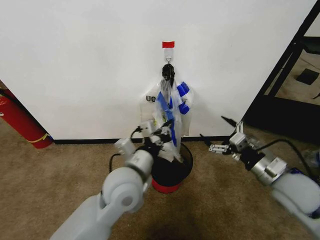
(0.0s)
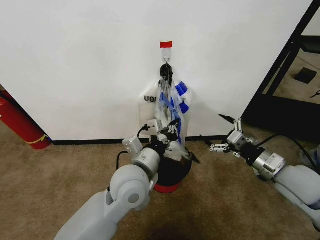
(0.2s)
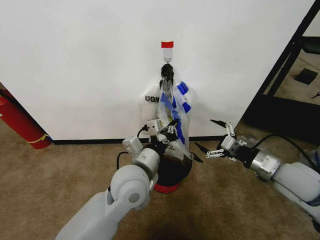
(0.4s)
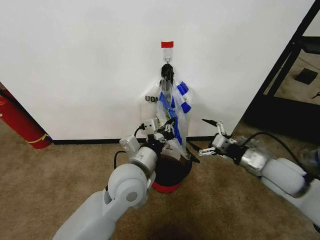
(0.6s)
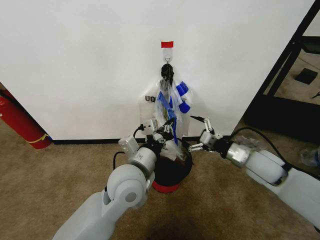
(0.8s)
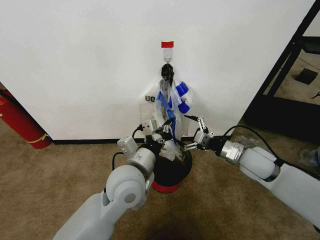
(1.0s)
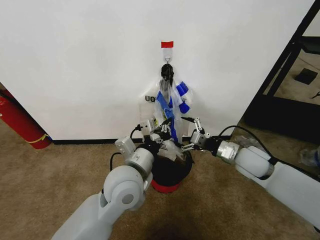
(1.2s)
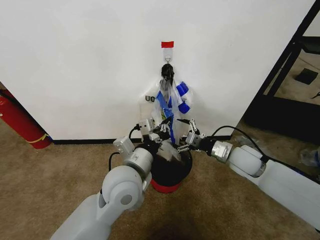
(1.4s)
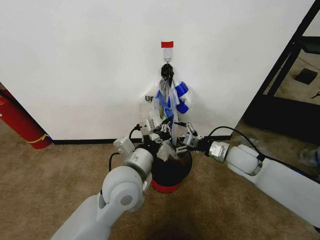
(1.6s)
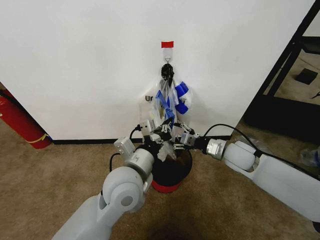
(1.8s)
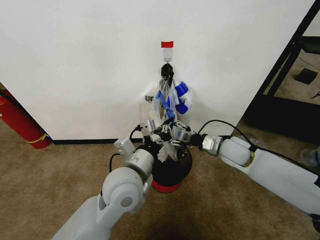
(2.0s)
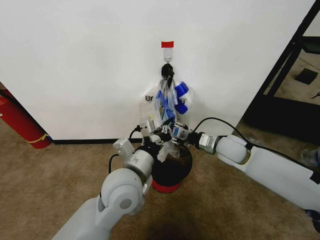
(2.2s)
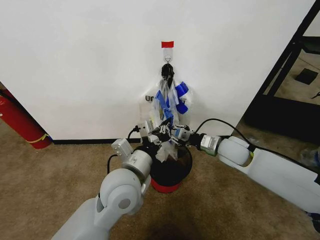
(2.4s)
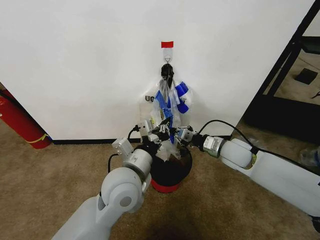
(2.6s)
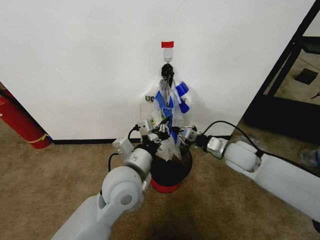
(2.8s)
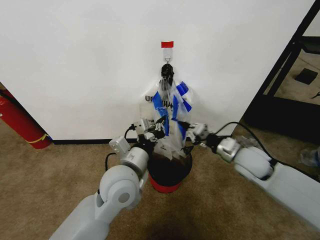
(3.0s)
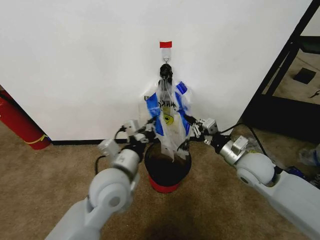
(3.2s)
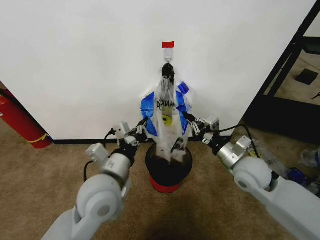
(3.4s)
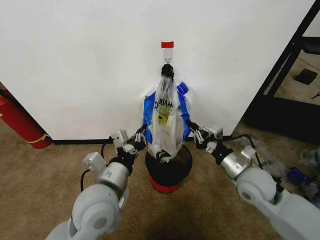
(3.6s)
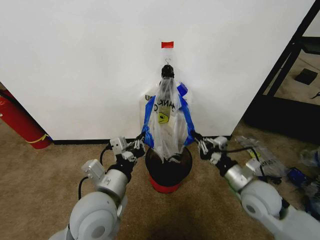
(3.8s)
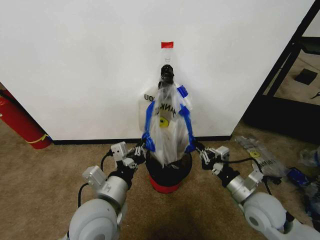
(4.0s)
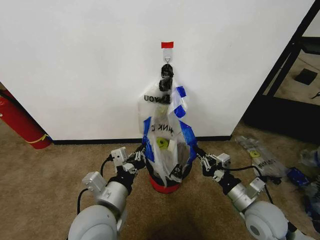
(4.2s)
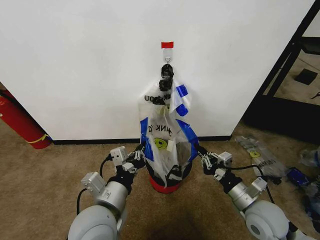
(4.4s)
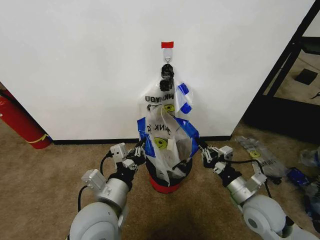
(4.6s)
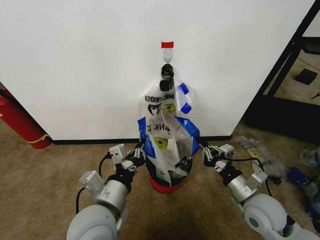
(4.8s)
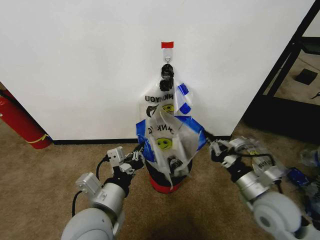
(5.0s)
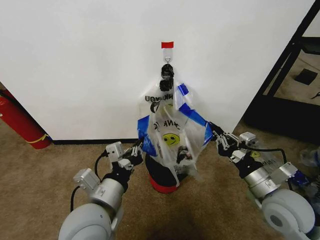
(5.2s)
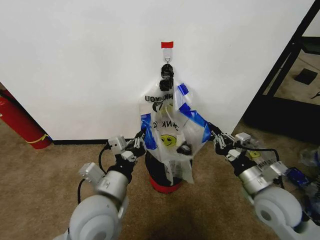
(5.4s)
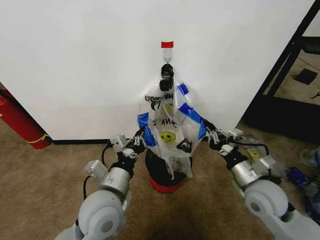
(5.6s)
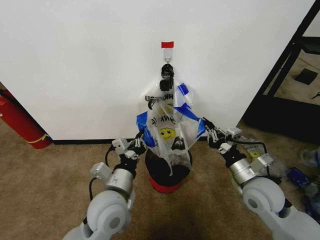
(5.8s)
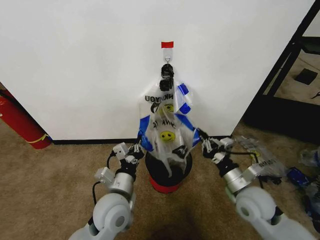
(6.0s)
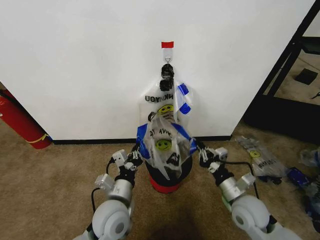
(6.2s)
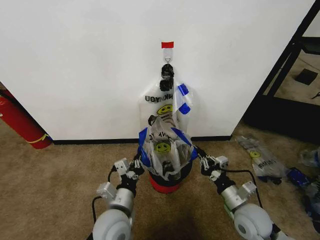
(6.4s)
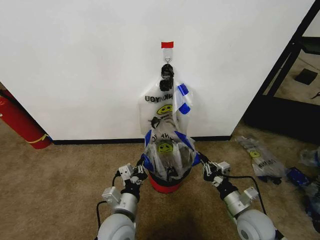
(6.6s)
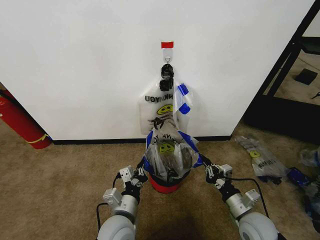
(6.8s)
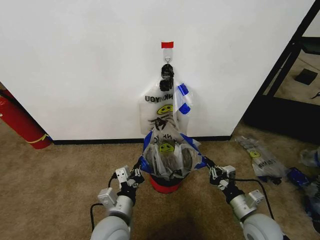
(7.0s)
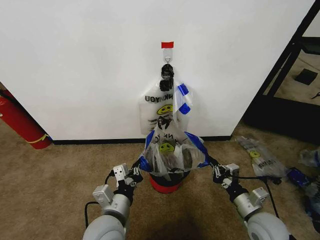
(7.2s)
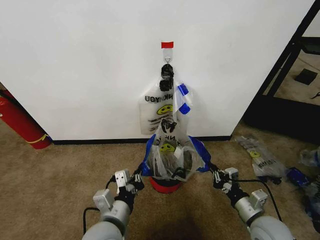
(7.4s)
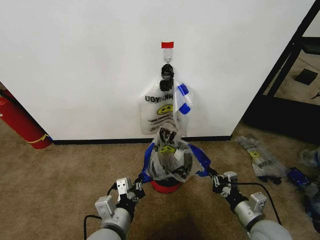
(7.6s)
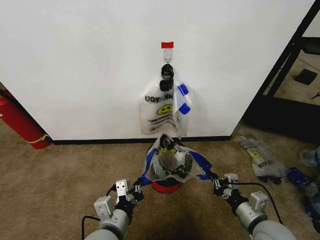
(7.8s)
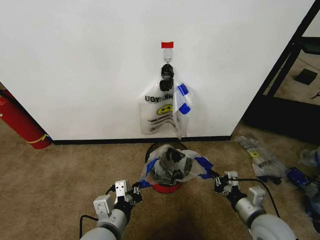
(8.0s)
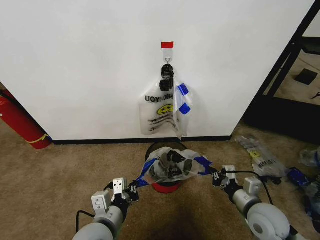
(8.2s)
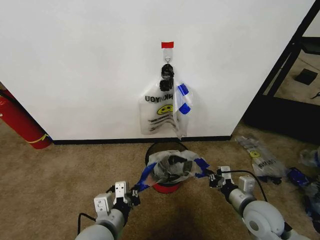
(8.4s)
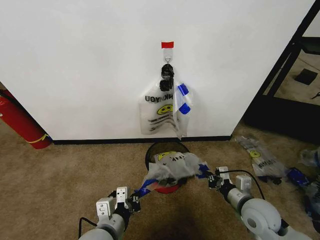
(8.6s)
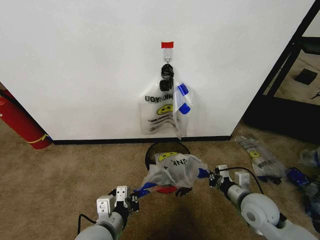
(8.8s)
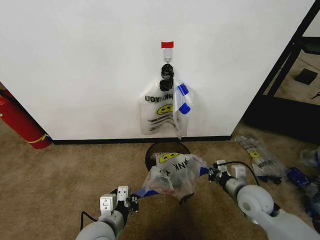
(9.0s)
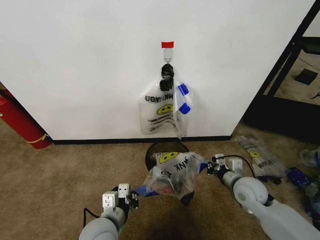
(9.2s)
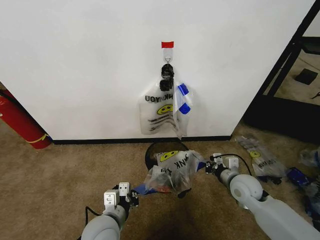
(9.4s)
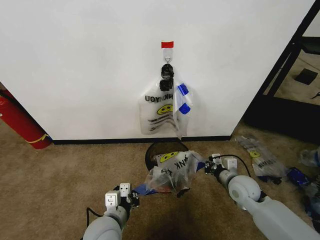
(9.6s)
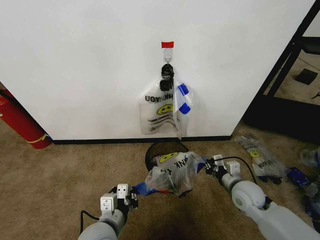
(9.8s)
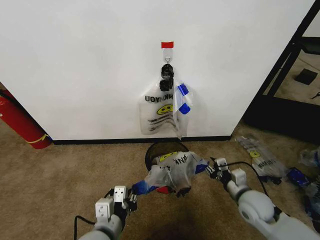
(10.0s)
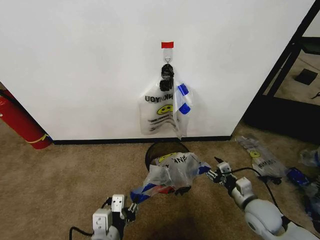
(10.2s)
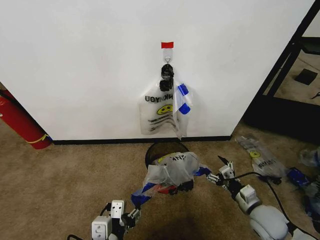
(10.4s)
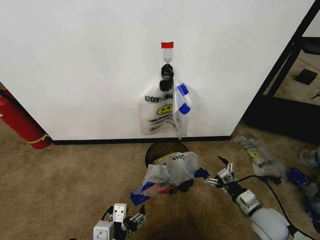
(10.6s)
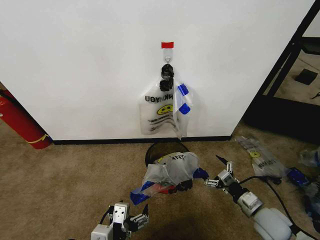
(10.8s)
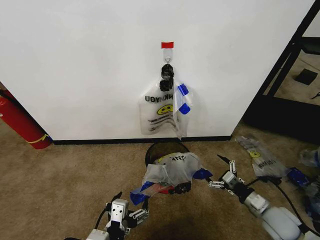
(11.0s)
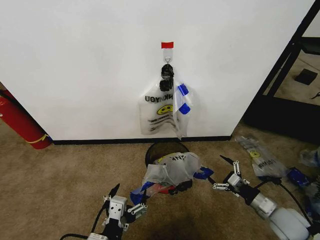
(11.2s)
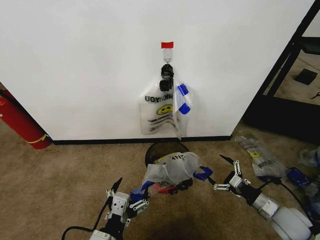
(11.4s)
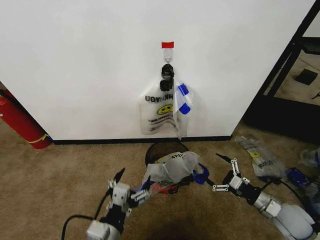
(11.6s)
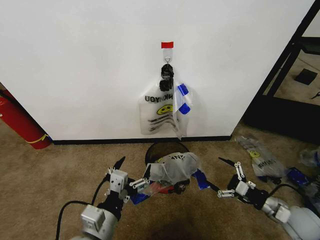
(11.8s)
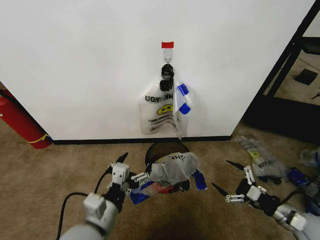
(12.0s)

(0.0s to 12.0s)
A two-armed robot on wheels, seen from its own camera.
Task of the whole recording: Pick up the garbage bag from the wall and place it over the trash bin.
0.0s - 1.6s: The right gripper moves forward and to the left, about 15 cm.
1.6s - 3.0s: The right gripper closes.
3.0s - 4.4s: The right gripper travels backward and downward by approximately 15 cm; the left gripper is displaced backward by some 10 cm.
4.4s - 6.0s: The left gripper moves downward and forward, roughly 10 cm.
6.0s - 7.6s: The two grippers go about 10 cm backward.
7.6s - 9.0s: The right gripper heads forward, covering roughly 10 cm.
9.0s - 10.4s: The right gripper changes place by some 5 cm, and opens its fingers, while the left gripper travels backward by some 5 cm, and opens up.
10.4s - 12.0s: The left gripper is displaced forward by some 5 cm. Meanwhile the right gripper heads to the right, covering approximately 10 cm.

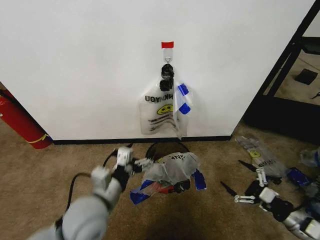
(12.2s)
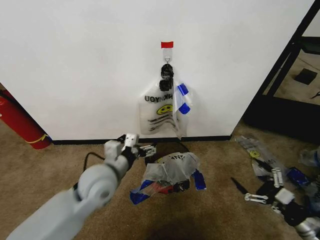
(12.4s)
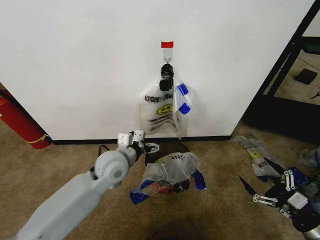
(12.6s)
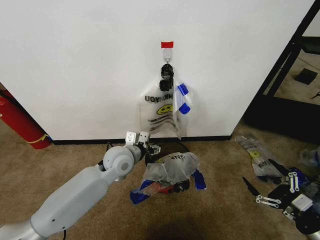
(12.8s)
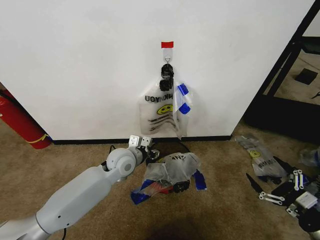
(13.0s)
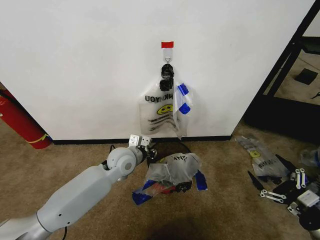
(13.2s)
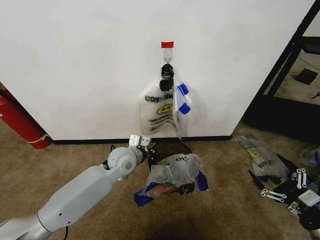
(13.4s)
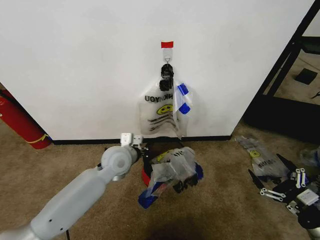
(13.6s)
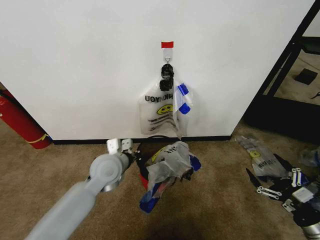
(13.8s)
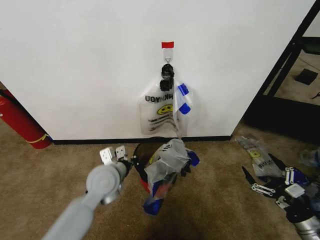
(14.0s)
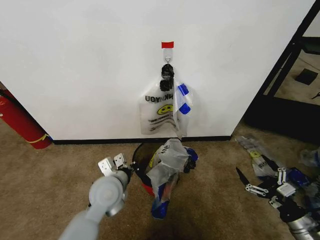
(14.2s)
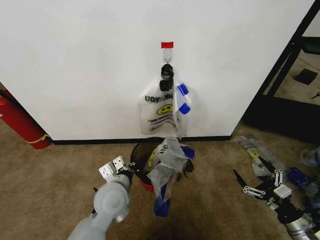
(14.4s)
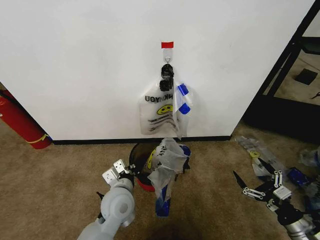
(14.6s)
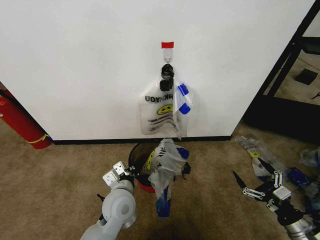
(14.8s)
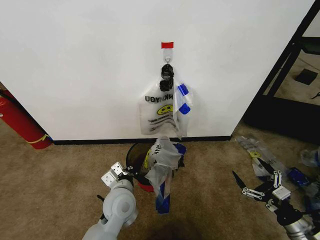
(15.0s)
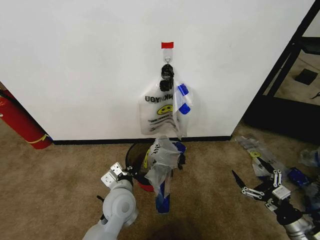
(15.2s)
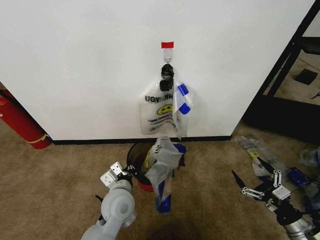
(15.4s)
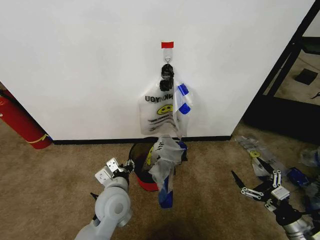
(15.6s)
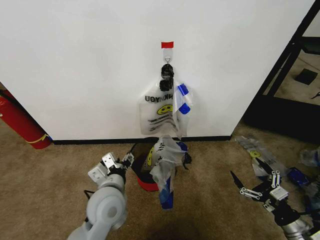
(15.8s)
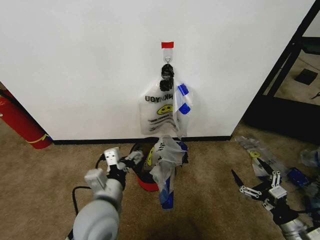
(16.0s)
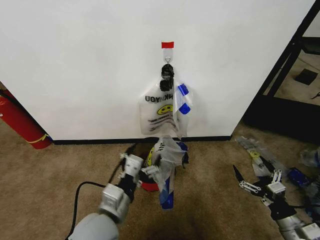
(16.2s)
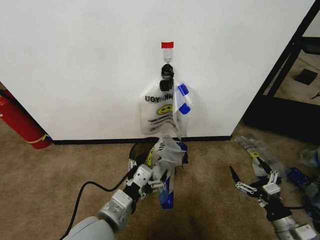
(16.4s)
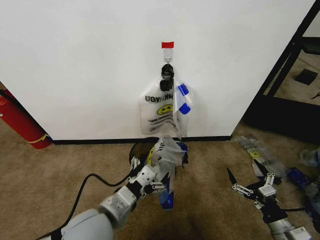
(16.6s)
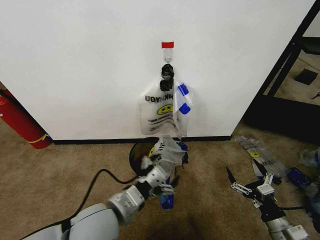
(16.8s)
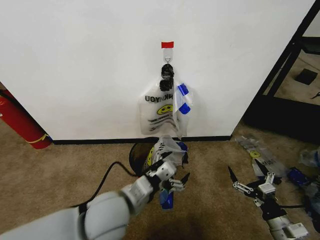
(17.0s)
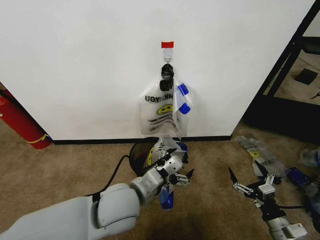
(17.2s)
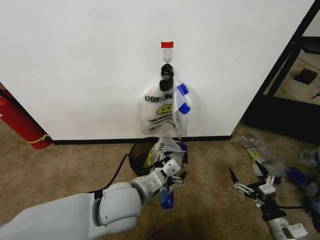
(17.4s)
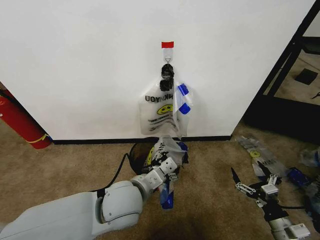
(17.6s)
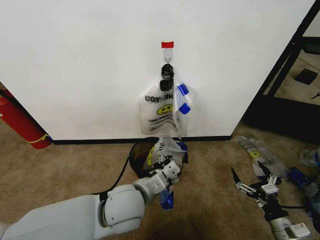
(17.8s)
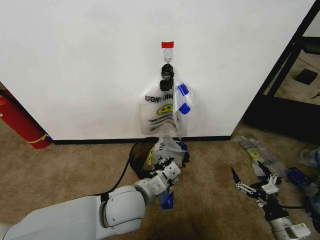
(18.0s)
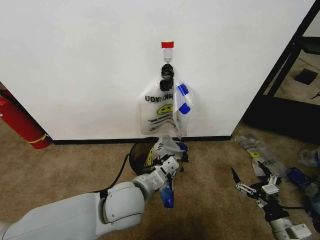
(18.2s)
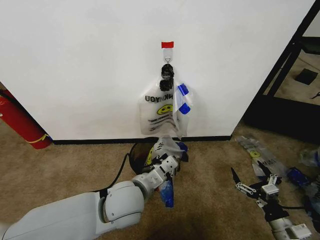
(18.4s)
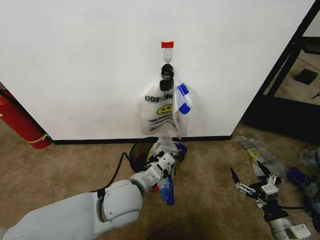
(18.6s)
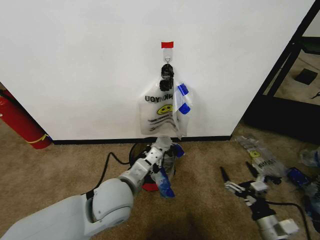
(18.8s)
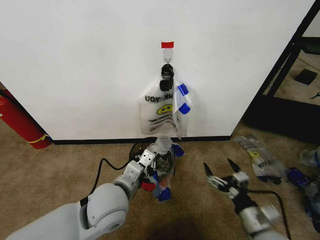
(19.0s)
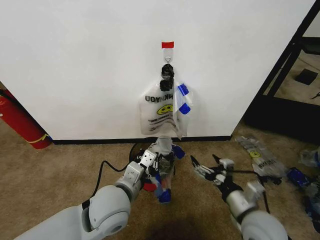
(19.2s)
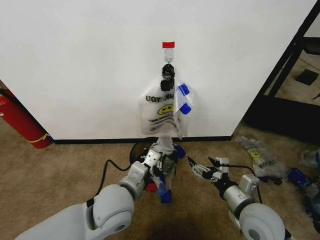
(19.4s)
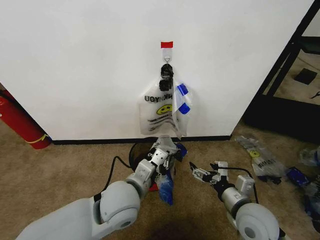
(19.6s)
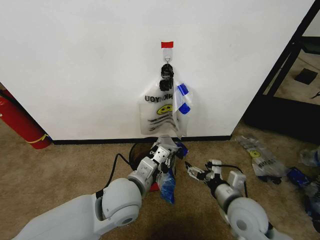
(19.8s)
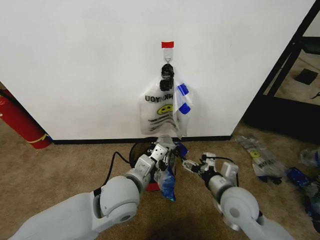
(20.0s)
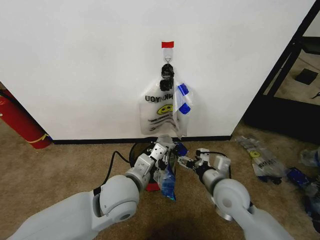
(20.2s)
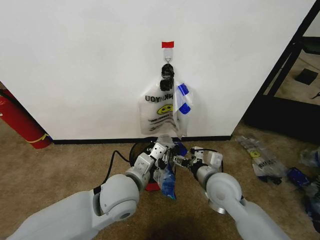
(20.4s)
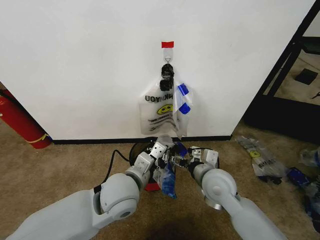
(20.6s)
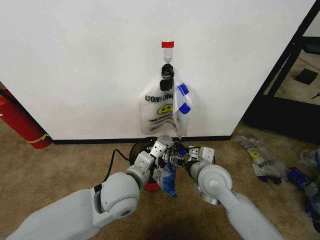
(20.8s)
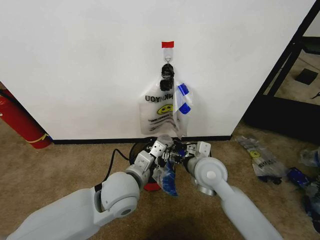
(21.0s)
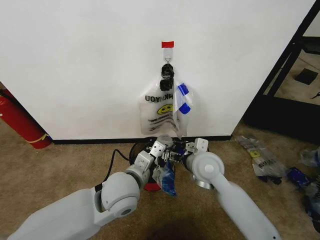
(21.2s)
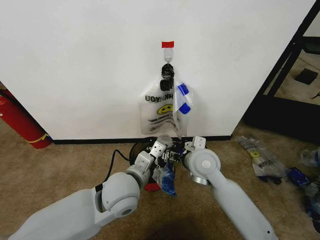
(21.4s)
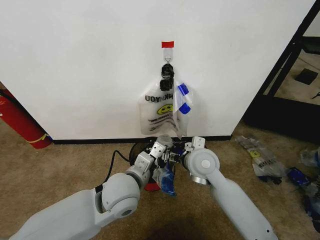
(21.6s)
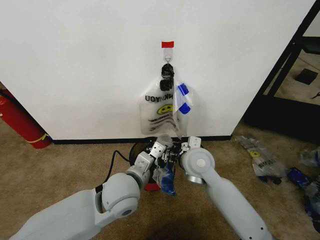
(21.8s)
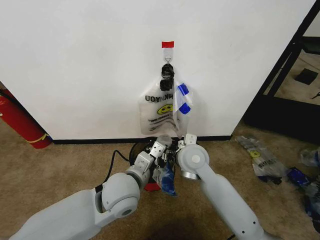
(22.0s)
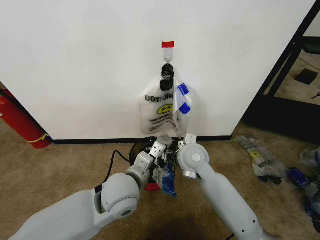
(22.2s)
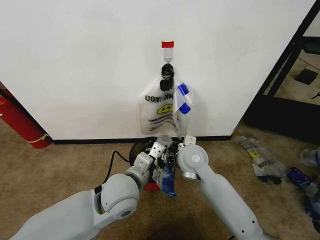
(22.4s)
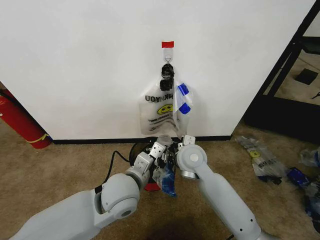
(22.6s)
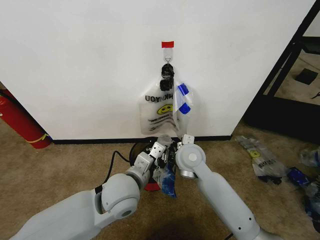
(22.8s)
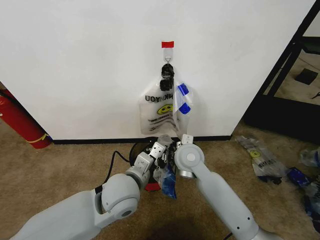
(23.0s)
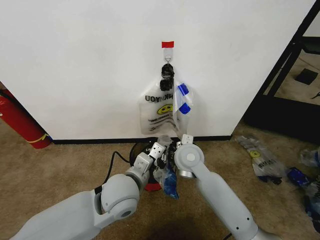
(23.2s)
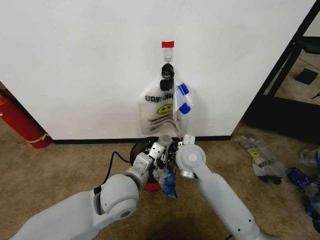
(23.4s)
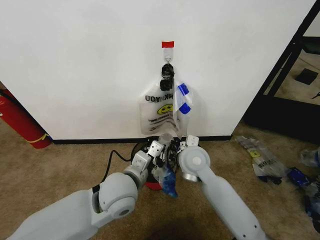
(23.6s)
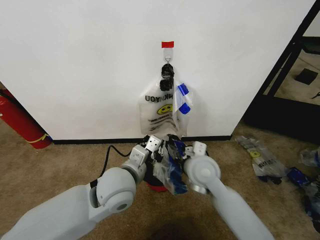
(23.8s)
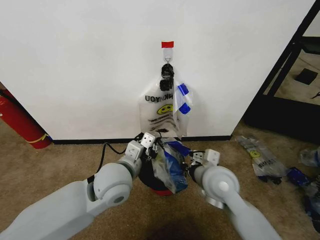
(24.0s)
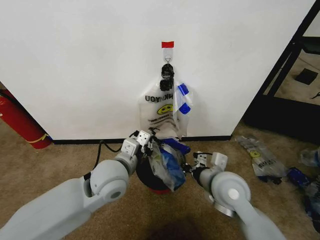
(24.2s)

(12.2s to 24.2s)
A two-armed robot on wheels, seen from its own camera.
Task of the whole recording: Pick up the garbage bag from the wall and place it over the trash bin.
12.2s - 13.8s: The left gripper is displaced forward by about 15 cm, and closes up.
13.8s - 15.2s: The left gripper shifts about 10 cm backward and downward.
15.2s - 16.6s: The right gripper ends up approximately 5 cm from where it was. Meanwhile the left gripper is displaced upward and backward by roughly 15 cm, and opens its fingers.
16.6s - 18.2s: The left gripper heads forward and to the right, covering approximately 10 cm, and closes up.
18.2s - 19.8s: The right gripper moves to the left, upward and forward, about 20 cm.
19.8s - 21.2s: The right gripper heads forward, to the left and upward, covering roughly 15 cm.
21.2s - 22.6s: The right gripper ends up about 5 cm from where it was, and closes its fingers.
22.6s - 24.2s: The right gripper is displaced backward and to the right by roughly 15 cm, and closes its fingers.
